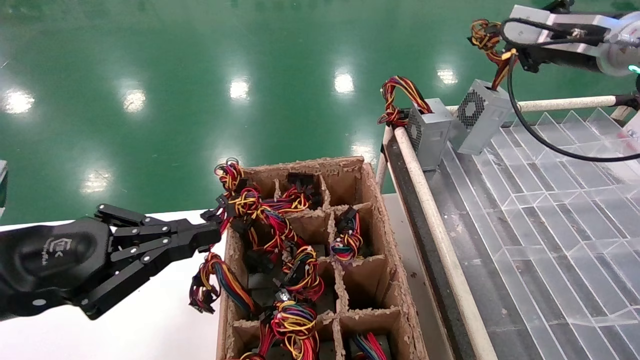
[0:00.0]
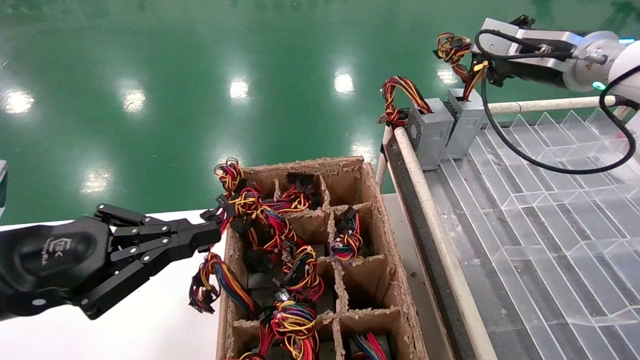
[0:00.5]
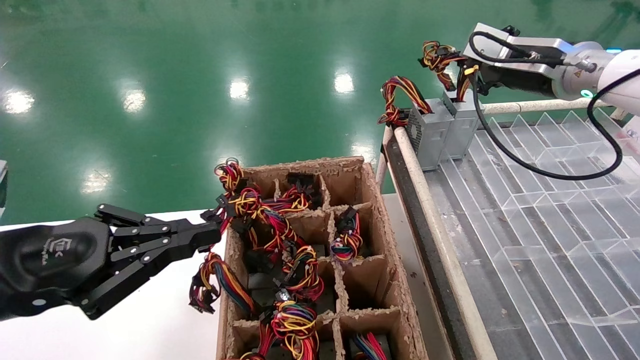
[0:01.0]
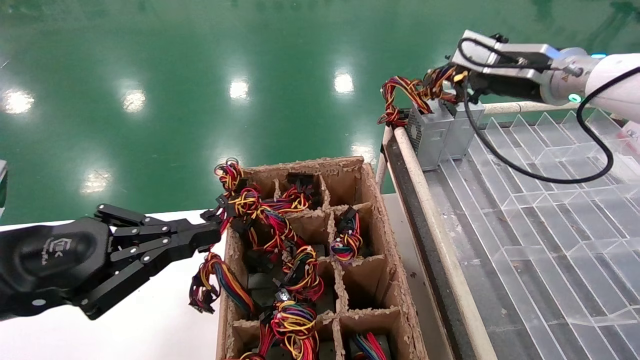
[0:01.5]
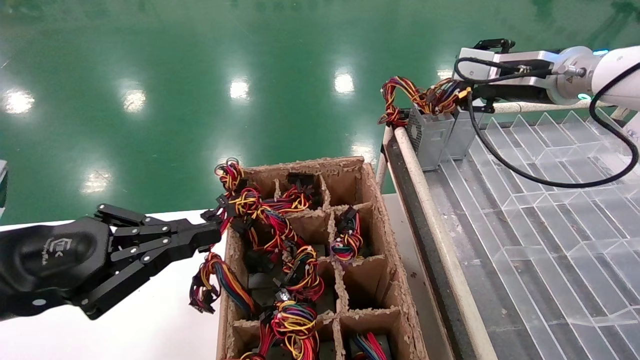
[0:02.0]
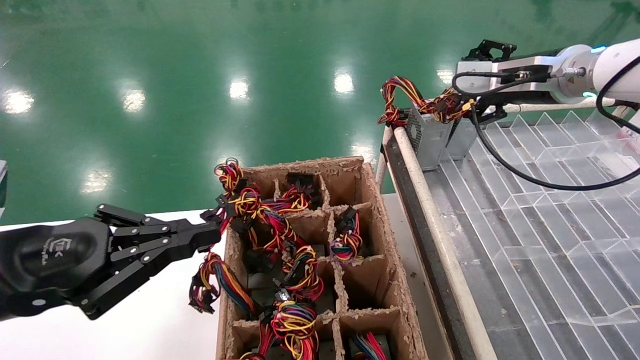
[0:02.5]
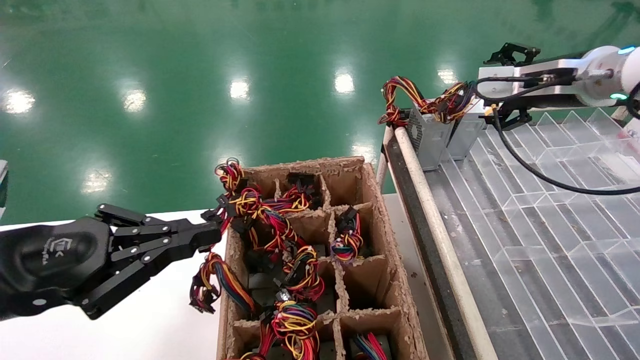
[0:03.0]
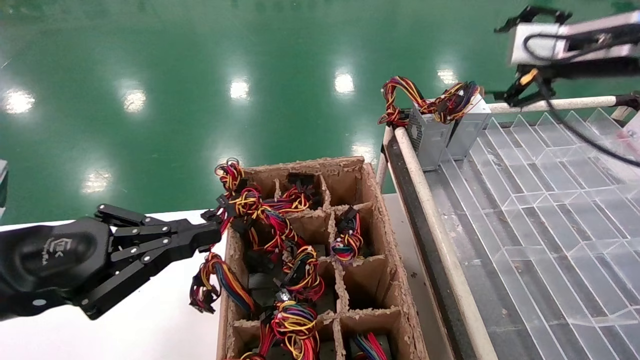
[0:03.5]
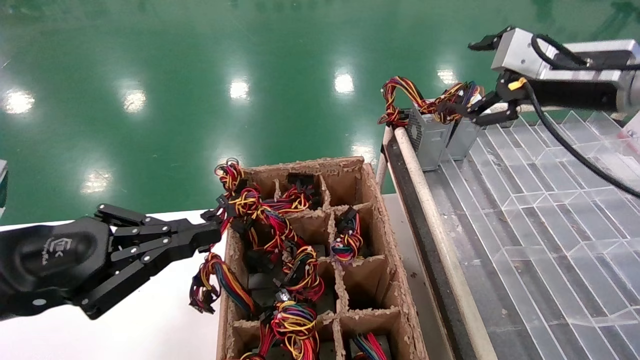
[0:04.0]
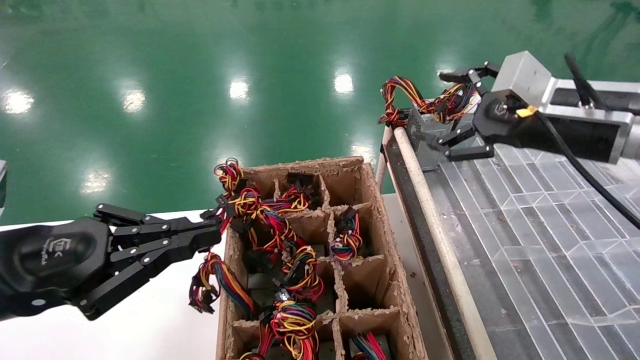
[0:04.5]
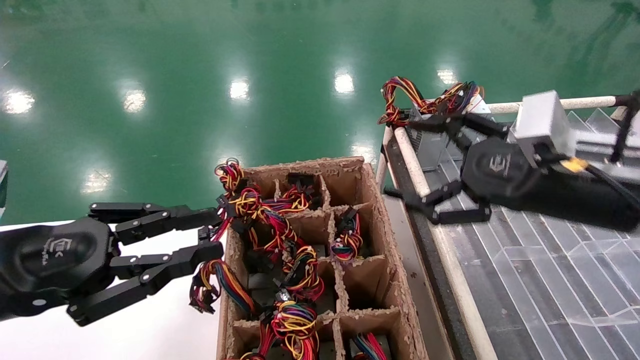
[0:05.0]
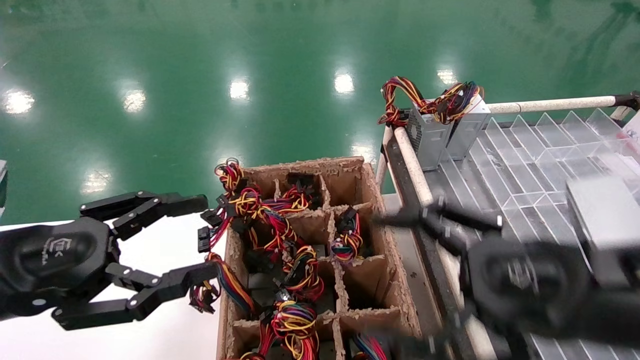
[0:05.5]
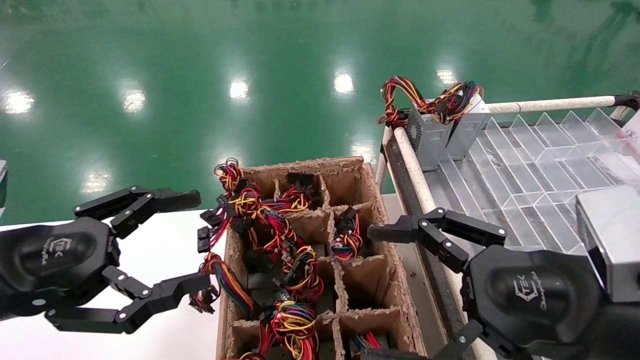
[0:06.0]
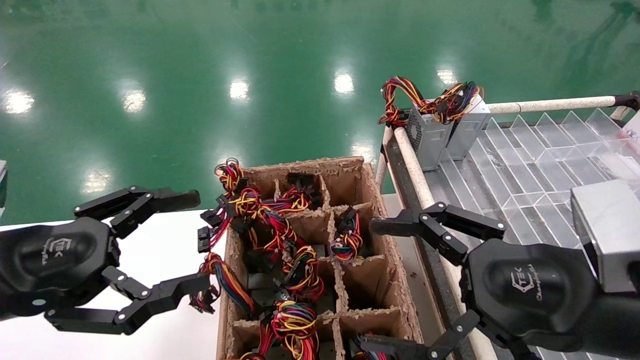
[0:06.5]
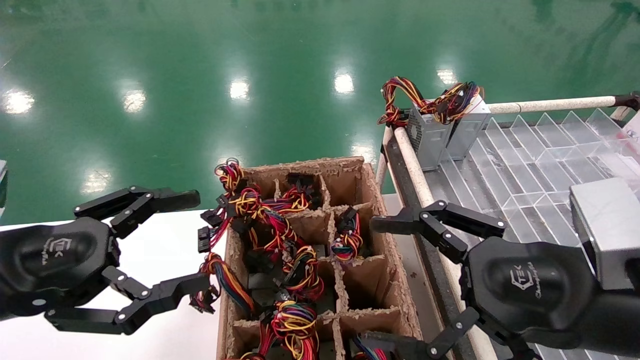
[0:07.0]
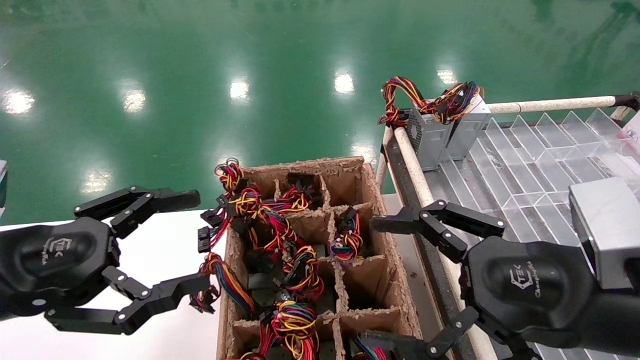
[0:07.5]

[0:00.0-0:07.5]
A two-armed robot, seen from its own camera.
Step, 0:00.0 to 0:03.0: Place the main unit power supply in the designated area.
0:00.0 to 0:02.0: The right gripper moves to the left, some 5 cm, and opens.
0:02.0 to 0:04.0: The right gripper goes roughly 5 cm backward, and opens.
0:04.0 to 0:05.5: The right gripper is displaced backward, downward and to the left by about 25 cm; the left gripper opens up.
0:05.5 to 0:07.5: The left gripper opens its fingers.
